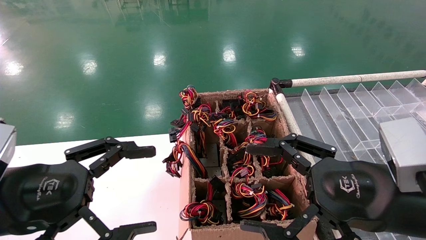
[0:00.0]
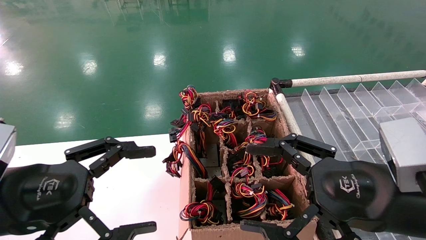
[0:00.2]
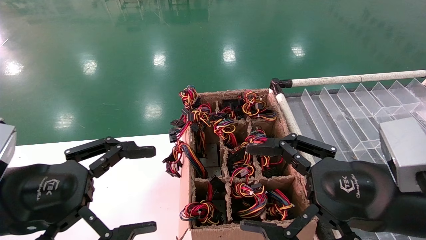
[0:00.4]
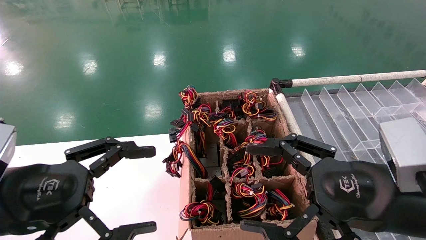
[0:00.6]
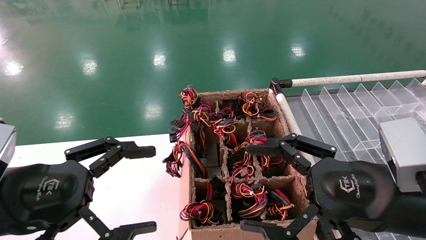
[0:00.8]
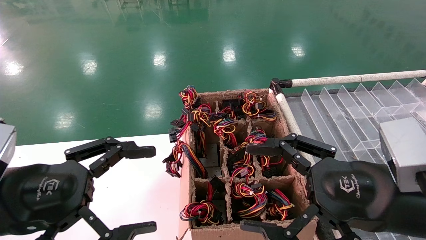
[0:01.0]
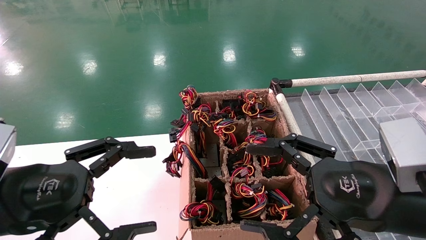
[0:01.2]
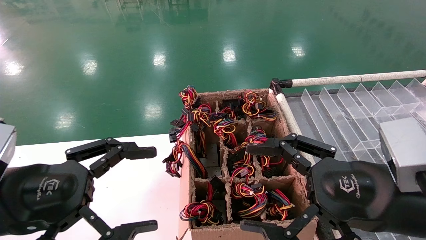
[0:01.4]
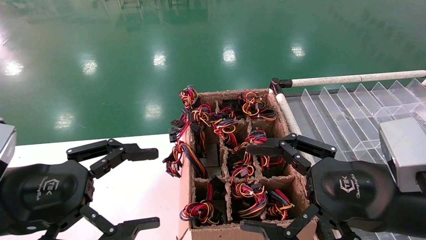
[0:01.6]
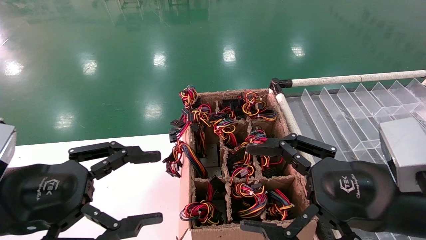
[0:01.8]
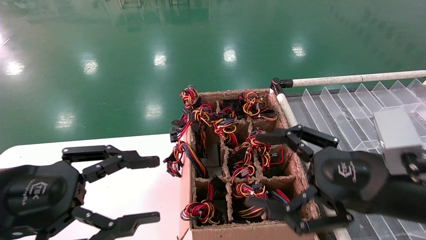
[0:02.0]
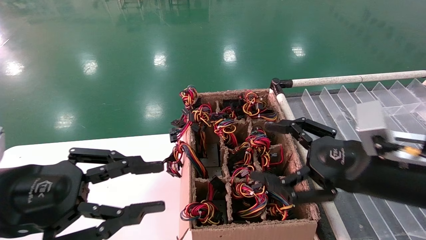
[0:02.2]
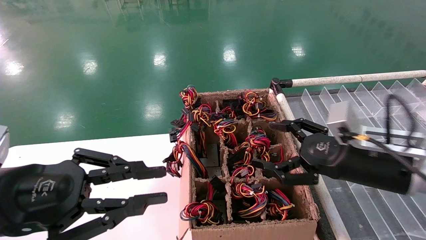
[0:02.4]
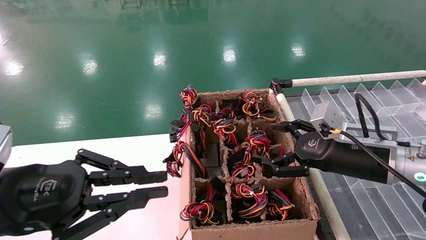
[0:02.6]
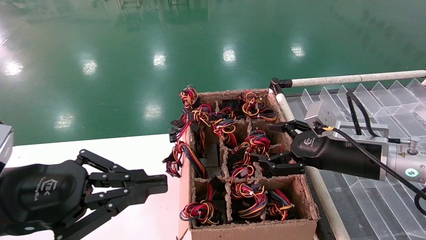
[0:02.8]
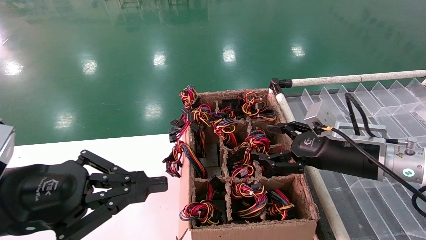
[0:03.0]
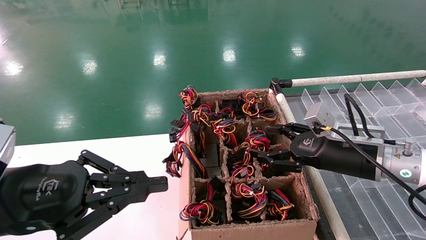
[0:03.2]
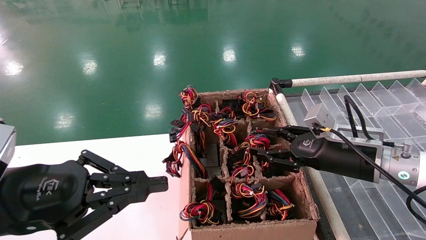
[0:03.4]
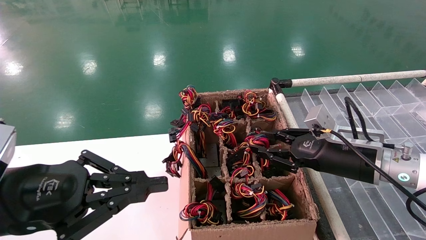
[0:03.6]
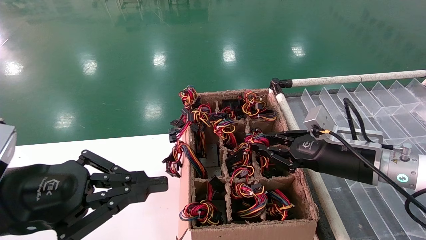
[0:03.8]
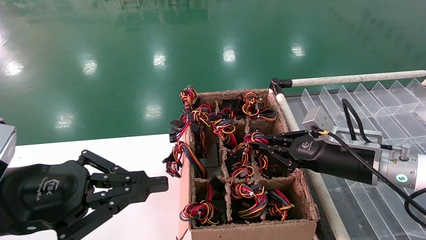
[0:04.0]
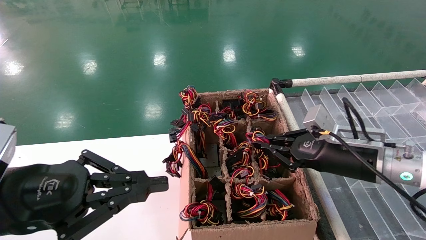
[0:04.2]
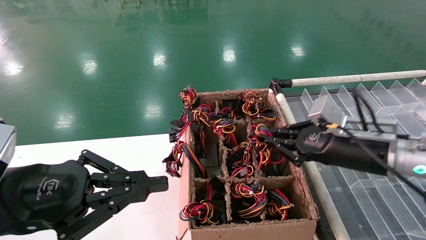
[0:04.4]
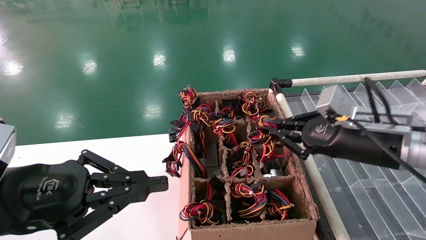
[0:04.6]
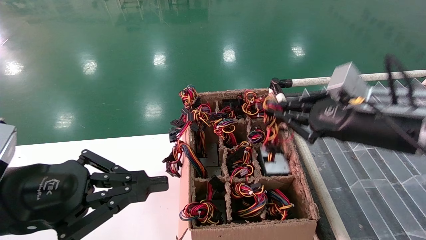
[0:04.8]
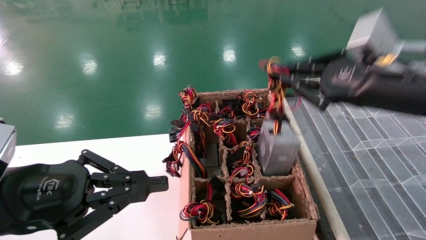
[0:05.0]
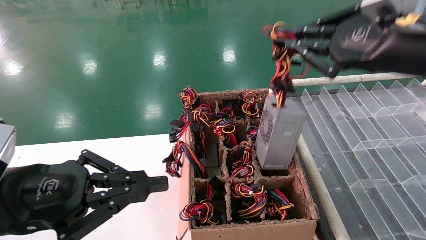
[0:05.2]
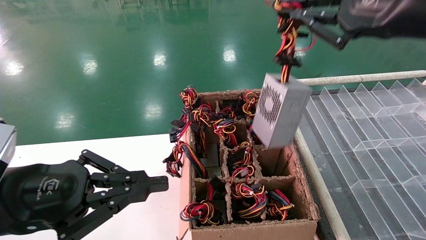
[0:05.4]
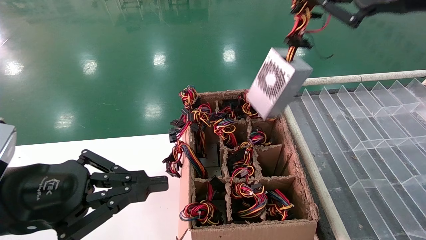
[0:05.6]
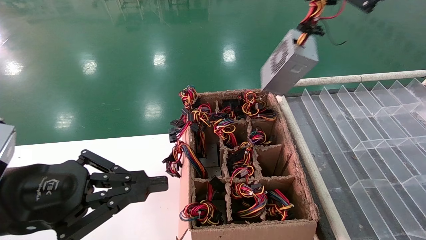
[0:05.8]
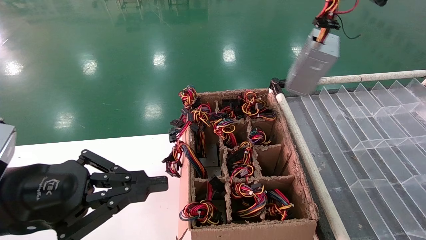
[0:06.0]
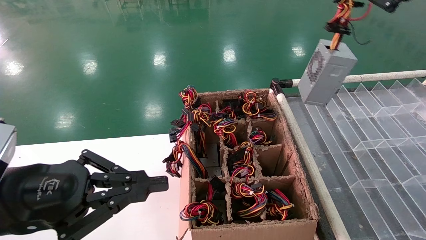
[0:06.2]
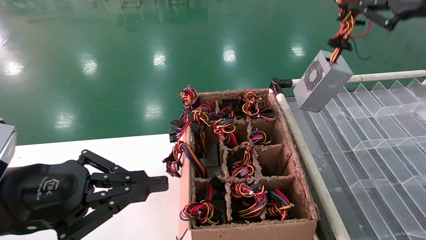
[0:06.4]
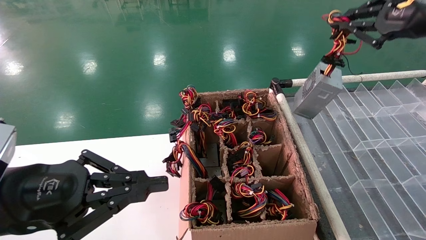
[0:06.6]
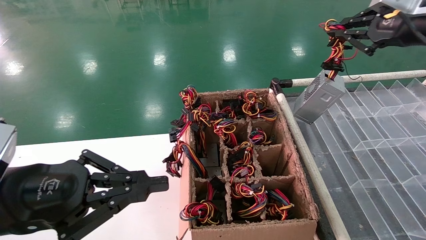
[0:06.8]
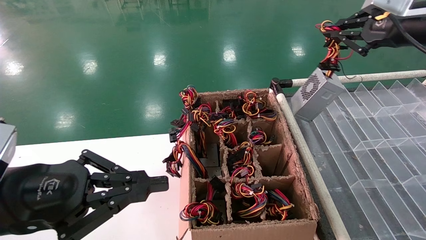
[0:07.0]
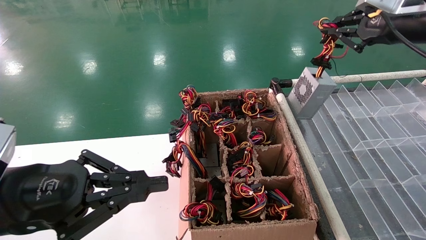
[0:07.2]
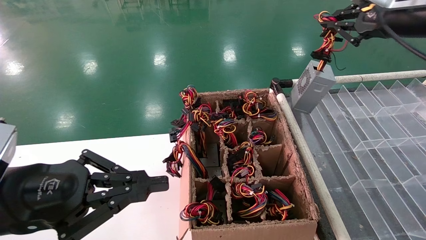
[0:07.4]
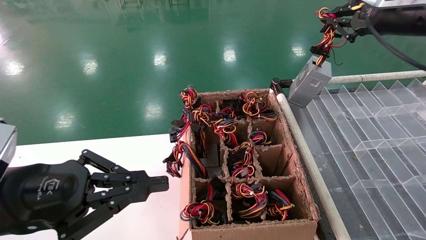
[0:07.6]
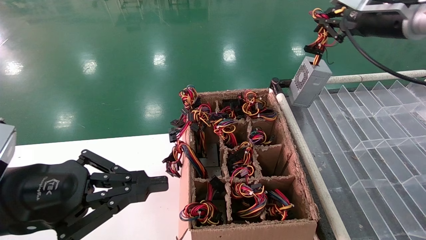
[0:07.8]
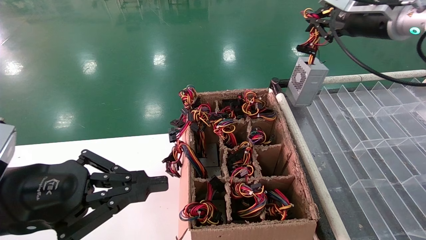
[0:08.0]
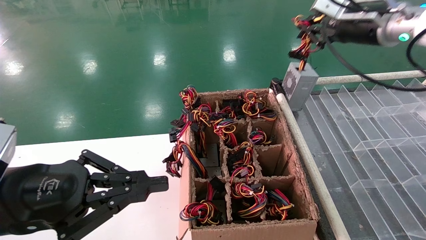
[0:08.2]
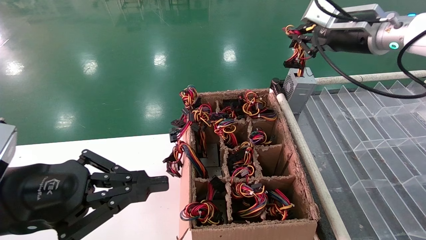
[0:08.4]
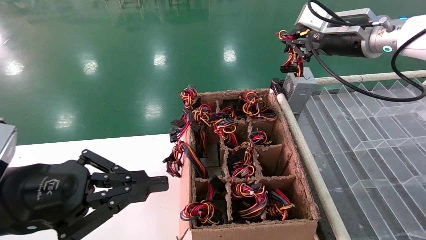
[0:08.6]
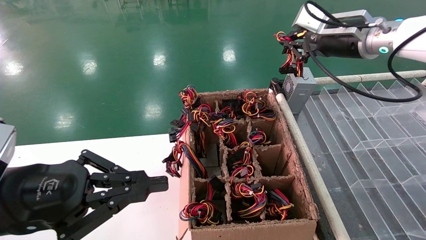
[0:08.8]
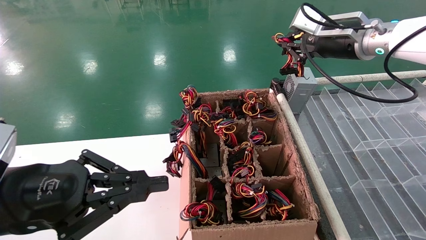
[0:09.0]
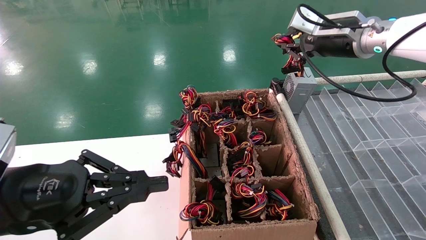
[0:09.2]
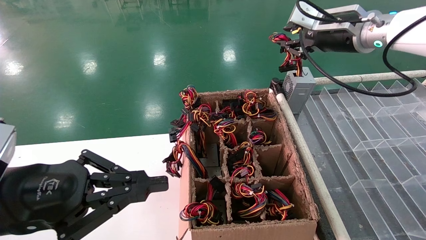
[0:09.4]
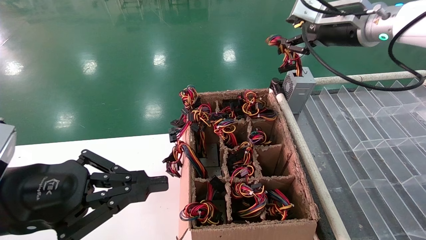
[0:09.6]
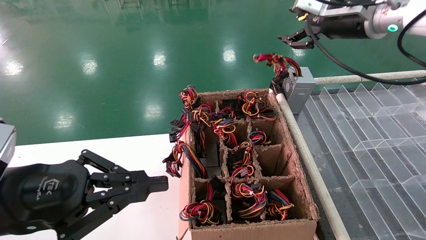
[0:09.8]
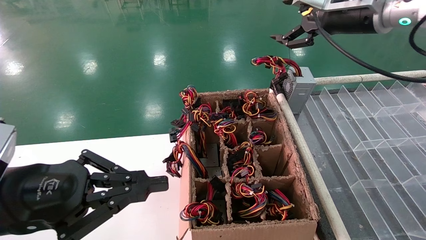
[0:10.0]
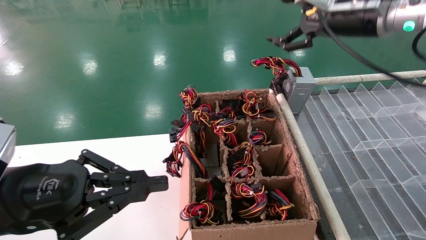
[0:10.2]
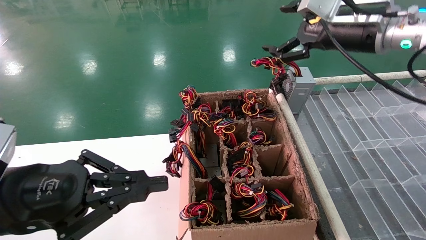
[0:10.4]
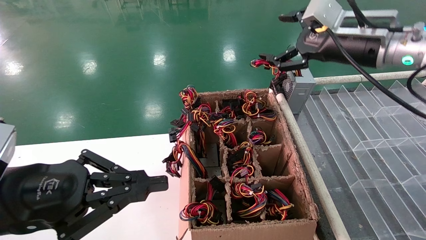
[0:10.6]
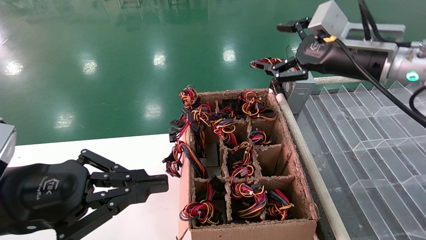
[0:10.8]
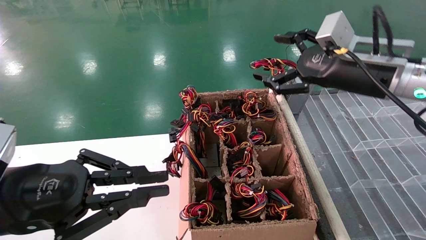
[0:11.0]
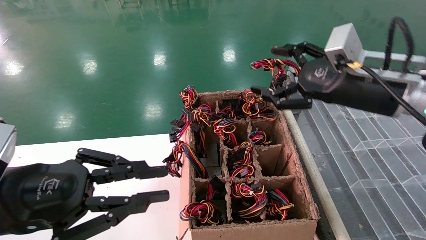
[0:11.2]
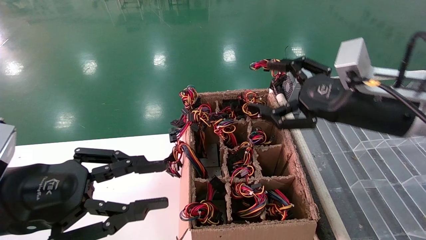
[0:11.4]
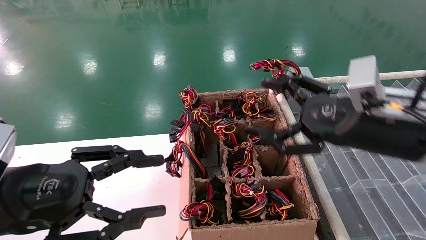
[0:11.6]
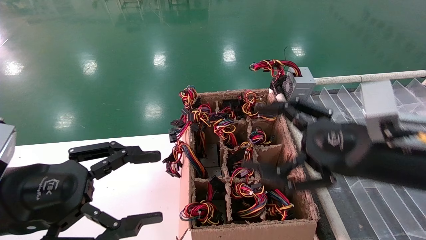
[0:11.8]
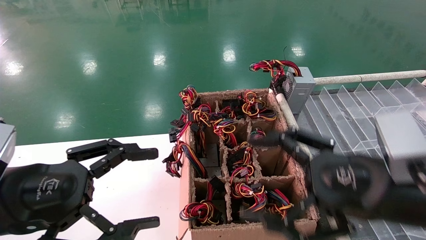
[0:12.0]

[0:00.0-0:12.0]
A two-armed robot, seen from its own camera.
Step, 0:02.2 to 0:04.0: Grab the main unit power supply from the containment box.
Step, 0:04.2 to 0:10.0: Place the main unit power supply in the designated area.
0:00.0 to 0:01.6: Both grippers stay put.
0:01.6 to 0:03.0: The right gripper goes about 15 cm forward, while the left gripper closes its fingers.
0:03.0 to 0:04.4: The right gripper closes its fingers.
0:04.4 to 0:06.0: The right gripper moves upward, some 25 cm.
0:06.0 to 0:07.6: The right gripper moves forward, about 15 cm.
0:07.6 to 0:09.0: The right gripper heads to the left, covering approximately 5 cm.
0:09.0 to 0:10.4: The right gripper opens.
0:10.4 to 0:12.0: The right gripper is displaced backward and downward by approximately 25 cm; the left gripper opens its fingers.

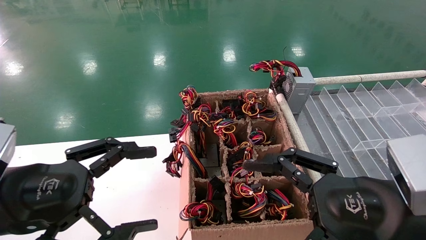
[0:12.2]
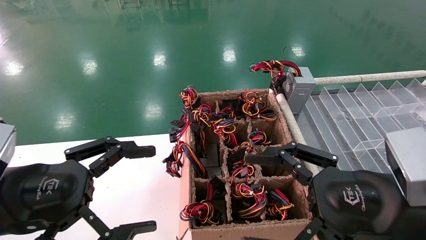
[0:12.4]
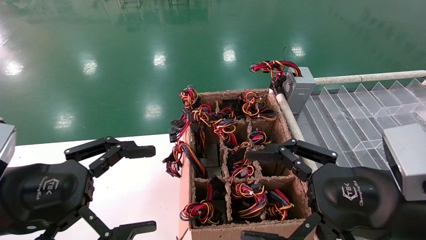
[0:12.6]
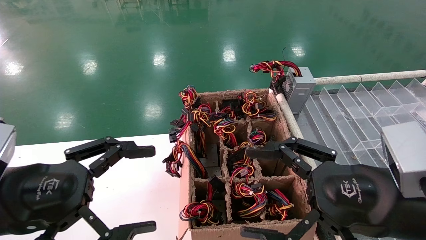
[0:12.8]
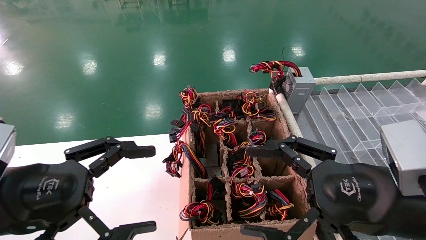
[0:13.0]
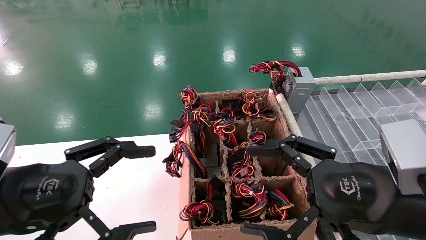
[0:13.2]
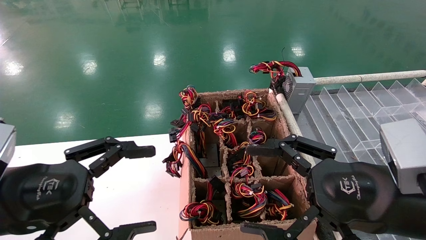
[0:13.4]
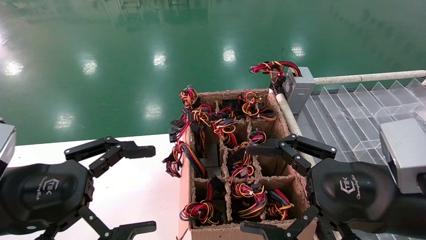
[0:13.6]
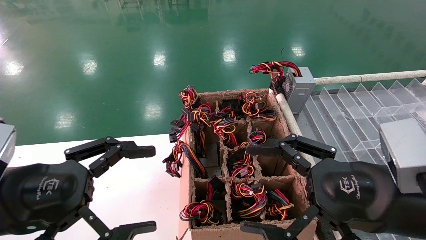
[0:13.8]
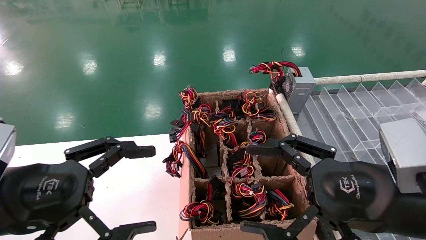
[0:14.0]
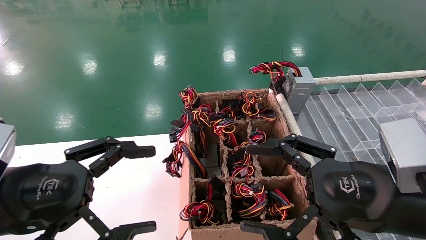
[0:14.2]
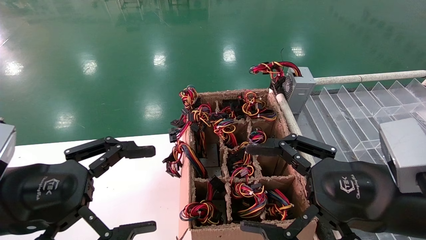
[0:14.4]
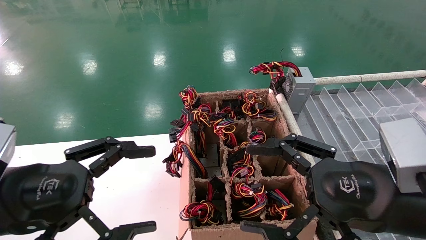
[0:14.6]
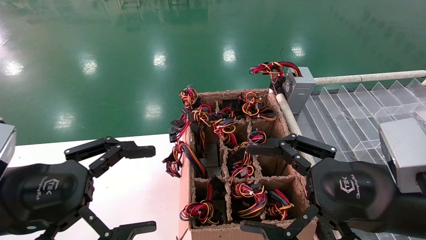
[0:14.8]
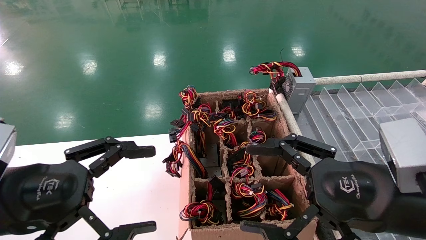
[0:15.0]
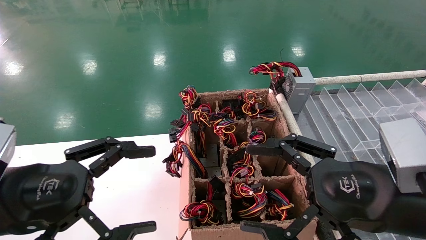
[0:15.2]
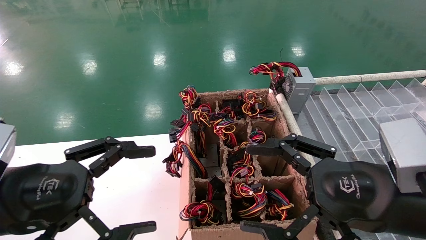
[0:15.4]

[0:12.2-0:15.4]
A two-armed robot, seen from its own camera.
0:12.2 to 0:15.4: The two grippers keep their place.
